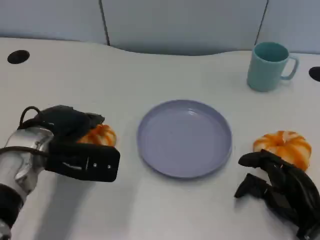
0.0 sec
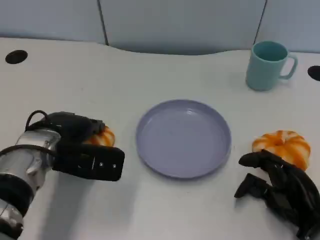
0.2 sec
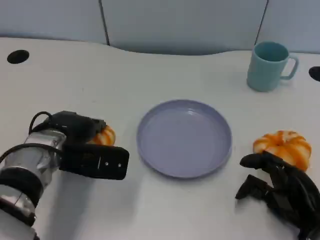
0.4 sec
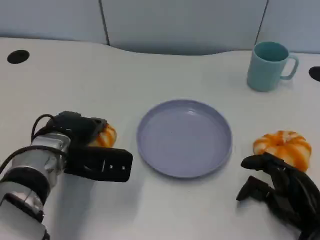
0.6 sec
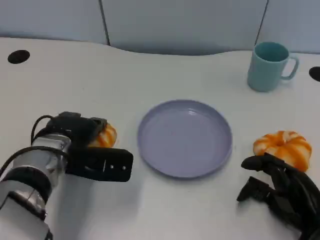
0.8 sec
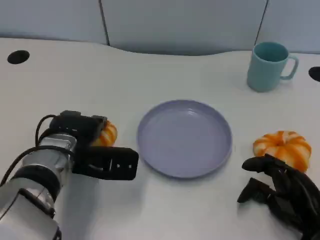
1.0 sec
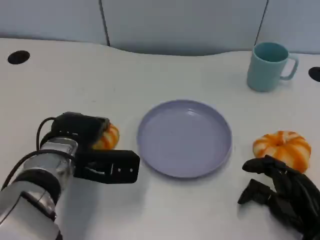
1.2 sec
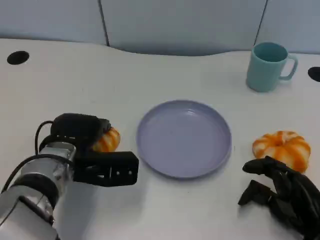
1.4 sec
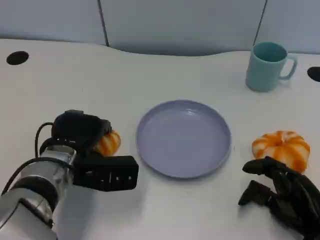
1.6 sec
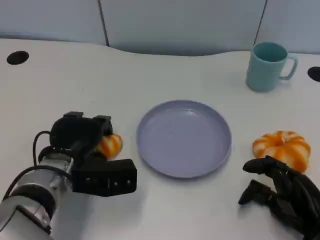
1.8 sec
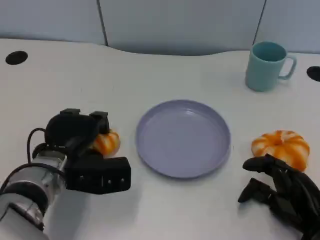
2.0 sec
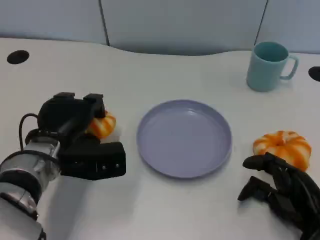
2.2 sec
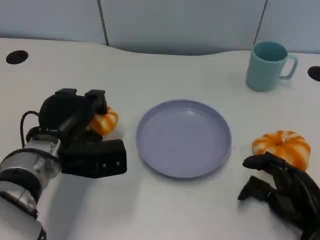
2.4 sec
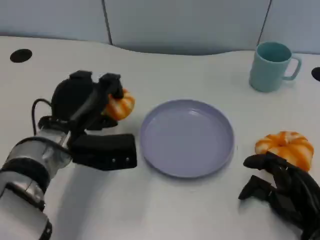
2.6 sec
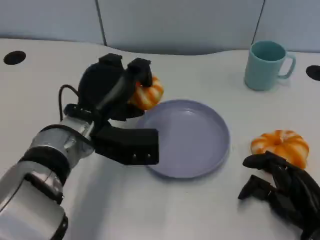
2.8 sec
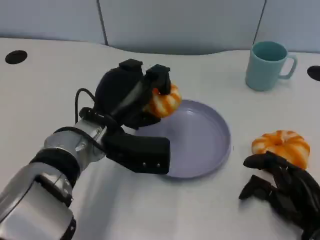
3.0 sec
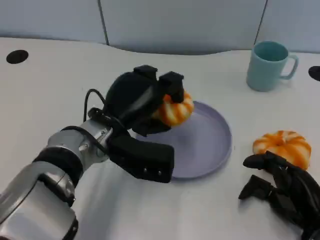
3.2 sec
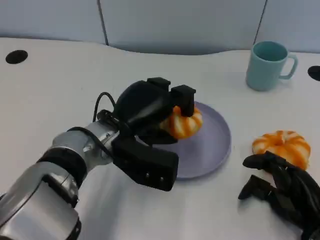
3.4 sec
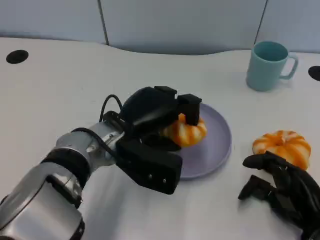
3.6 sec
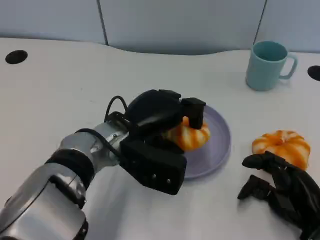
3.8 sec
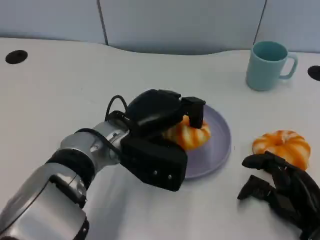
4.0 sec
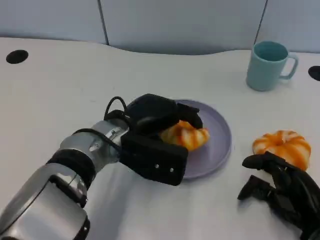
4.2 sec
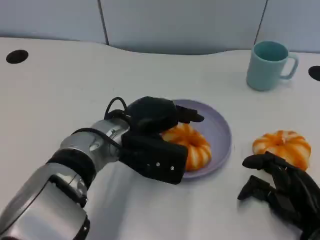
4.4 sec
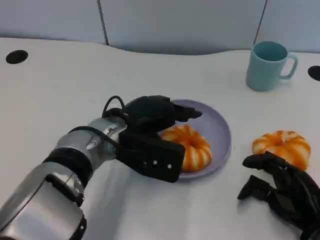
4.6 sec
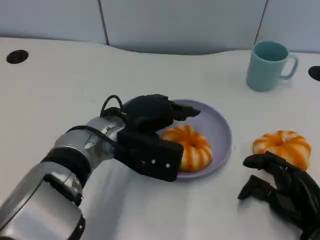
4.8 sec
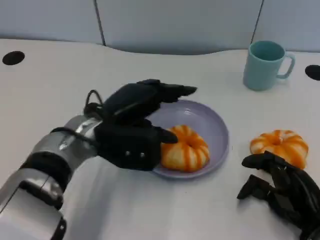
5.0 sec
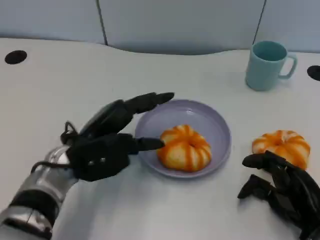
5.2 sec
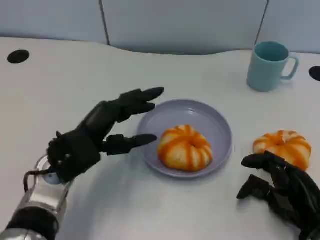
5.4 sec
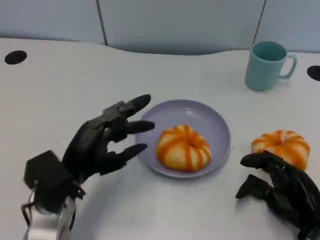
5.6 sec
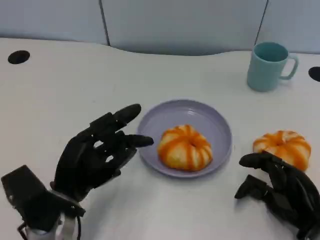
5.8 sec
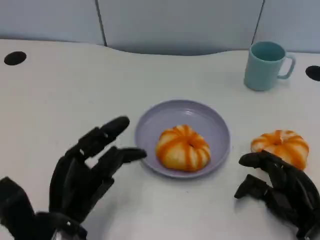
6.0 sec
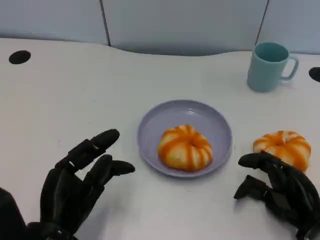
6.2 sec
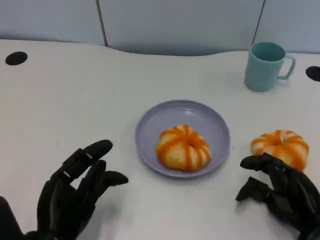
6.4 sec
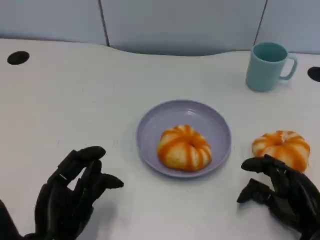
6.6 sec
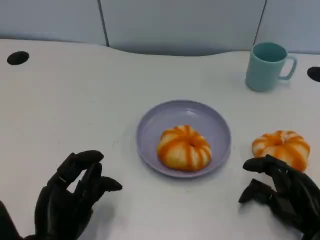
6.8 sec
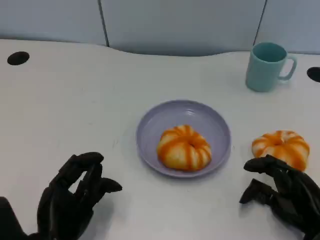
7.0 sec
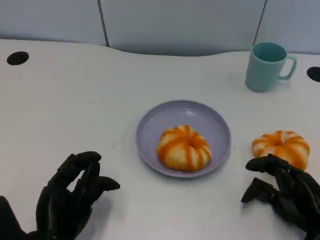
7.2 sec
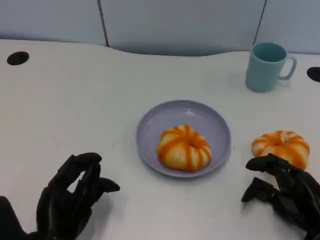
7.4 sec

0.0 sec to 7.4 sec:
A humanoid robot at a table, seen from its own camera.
Task of the whole recording: Grasp the bread from the table and place it into the plate.
0.0 sec to 1.4 sec: The left hand ends up roughly 5 cm from where it was.
1.4 sec to 3.0 sec: The left hand shifts approximately 5 cm to the right.
4.4 sec to 6.0 sec: The left hand heads backward, to the left and downward, covering some 15 cm.
6.0 sec to 7.4 sec: The hands make only small movements.

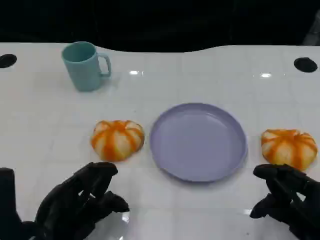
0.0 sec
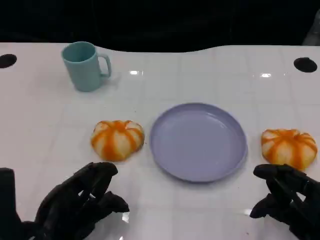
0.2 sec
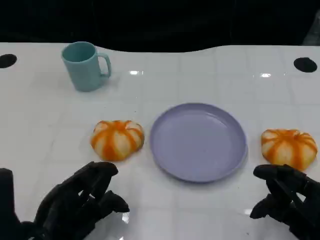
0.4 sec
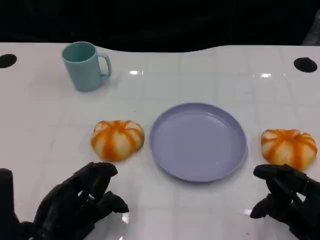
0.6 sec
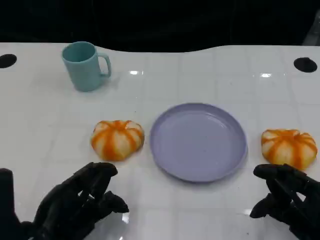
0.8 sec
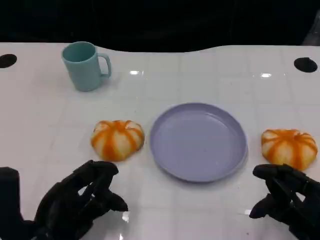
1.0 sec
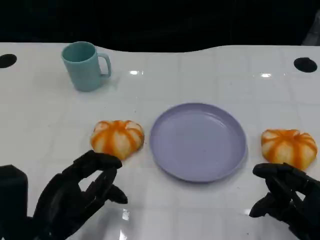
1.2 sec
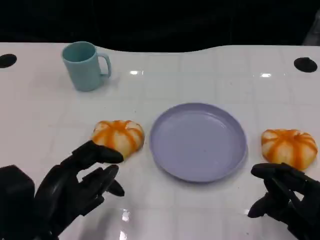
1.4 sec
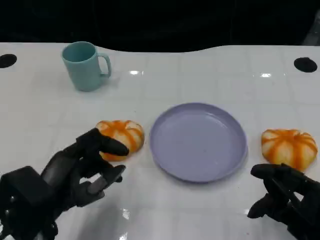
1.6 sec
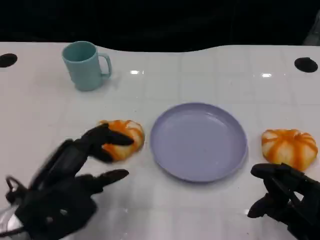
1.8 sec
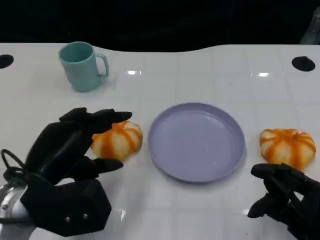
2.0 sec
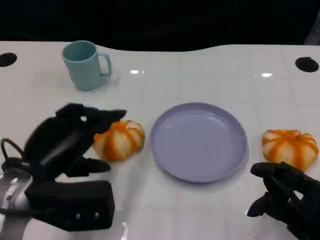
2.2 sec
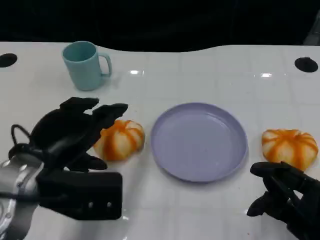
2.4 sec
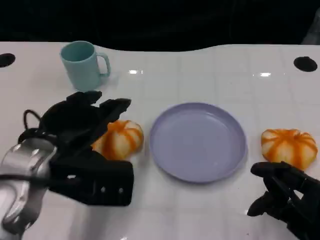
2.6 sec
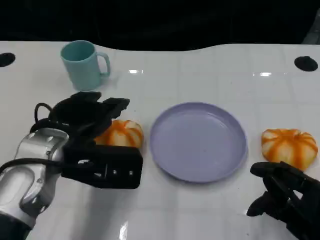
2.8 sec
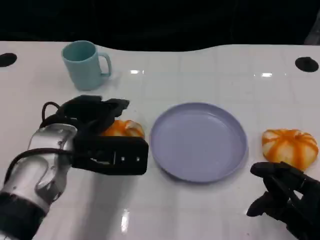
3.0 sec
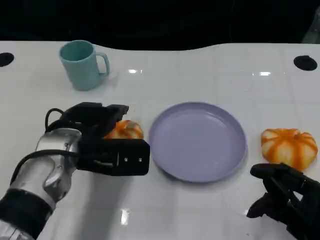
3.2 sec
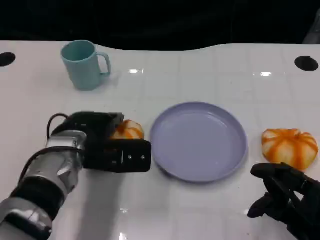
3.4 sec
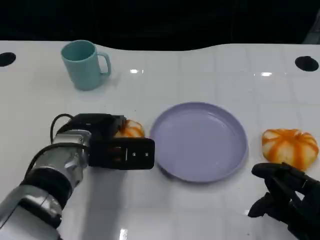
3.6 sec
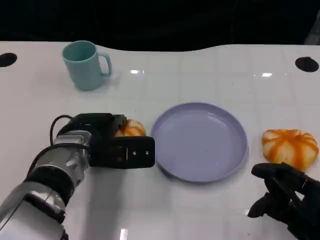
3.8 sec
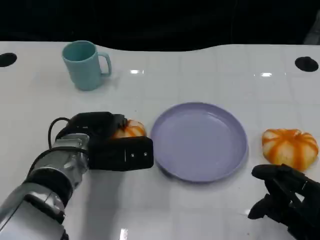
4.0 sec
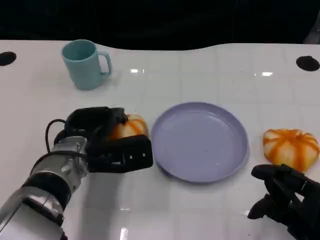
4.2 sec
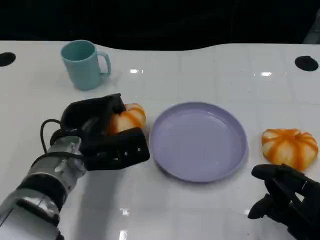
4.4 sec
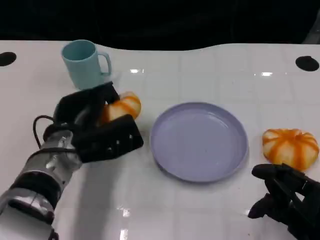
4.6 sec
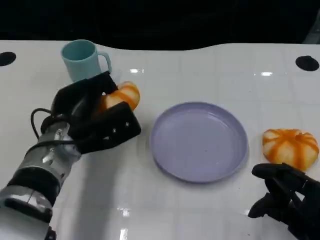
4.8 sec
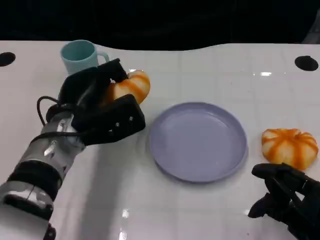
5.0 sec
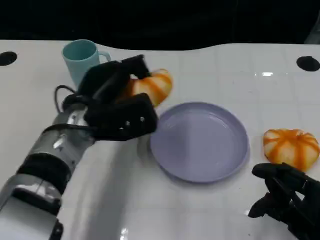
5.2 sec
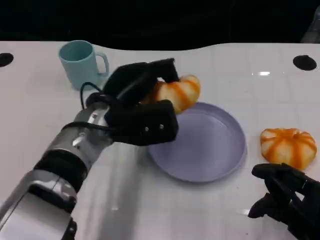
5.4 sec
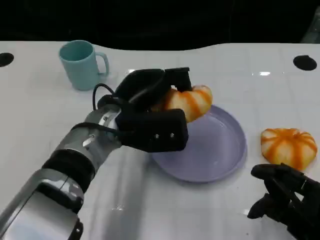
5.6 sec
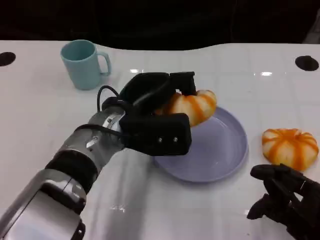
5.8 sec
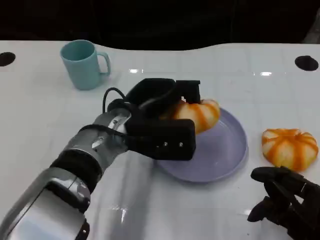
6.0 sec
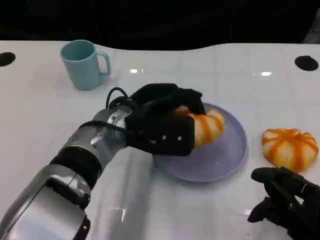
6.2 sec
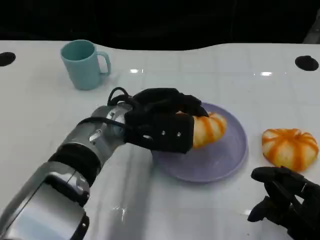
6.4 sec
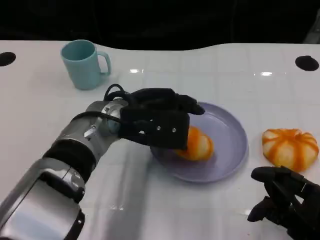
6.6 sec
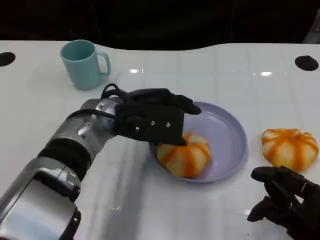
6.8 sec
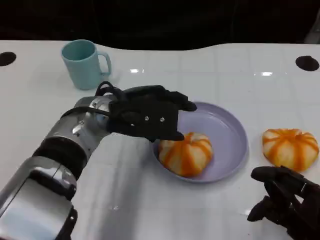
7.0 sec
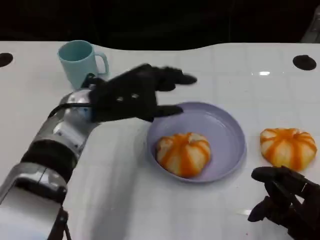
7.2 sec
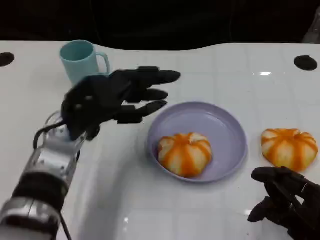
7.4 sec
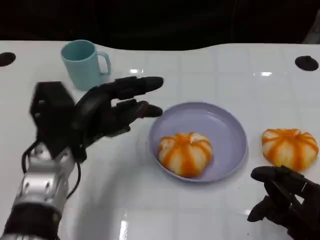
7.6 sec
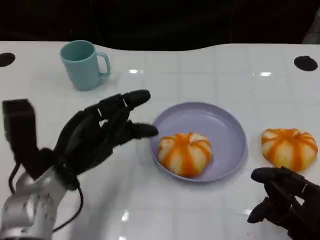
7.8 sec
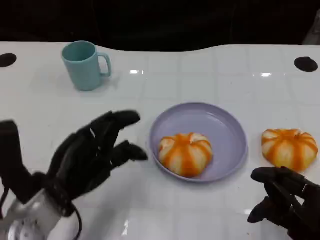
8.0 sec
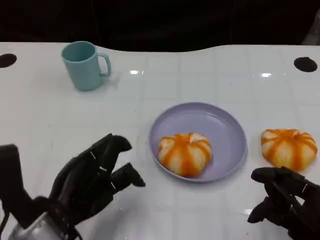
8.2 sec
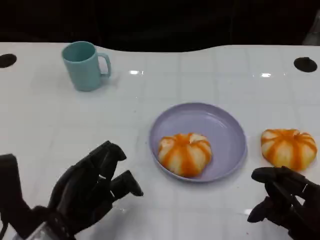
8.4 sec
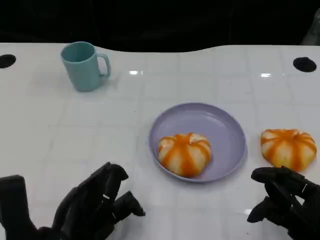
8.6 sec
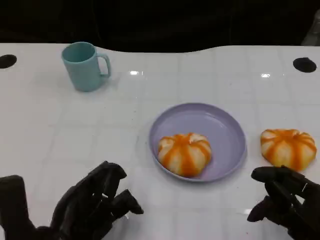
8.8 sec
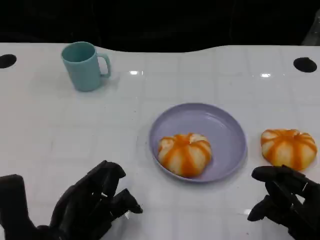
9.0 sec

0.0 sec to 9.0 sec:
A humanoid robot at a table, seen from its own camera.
Task of the whole recording: Grasp the bread from the table and place it into the plate.
1.6 sec to 3.0 sec: The left hand is displaced forward by some 10 cm.
3.0 sec to 4.4 sec: The left hand shifts some 5 cm downward.
4.4 sec to 6.0 sec: The left hand moves to the right, approximately 10 cm.
6.0 sec to 7.6 sec: The left hand travels to the left by roughly 10 cm.
7.6 sec to 9.0 sec: The left hand shifts roughly 10 cm backward.

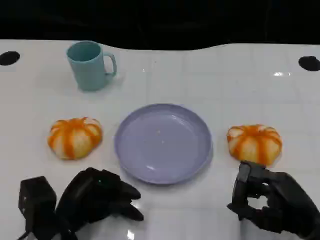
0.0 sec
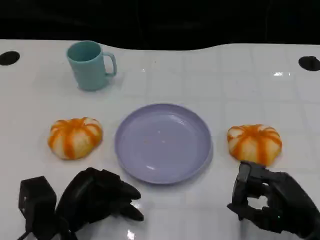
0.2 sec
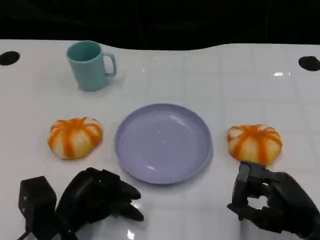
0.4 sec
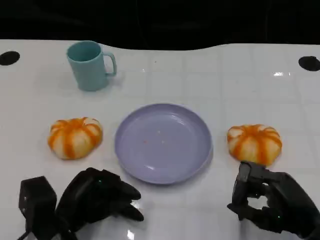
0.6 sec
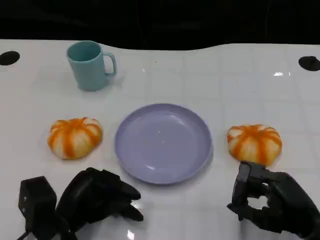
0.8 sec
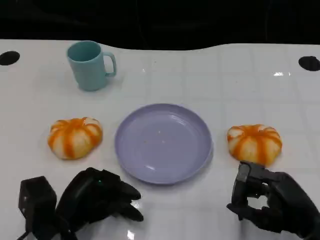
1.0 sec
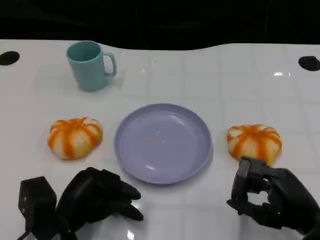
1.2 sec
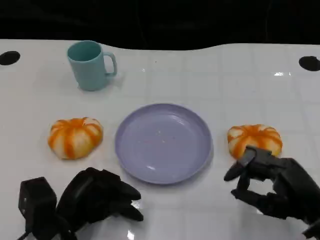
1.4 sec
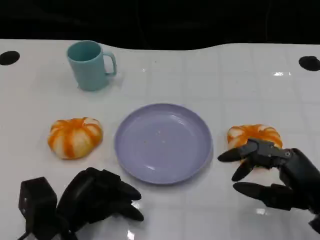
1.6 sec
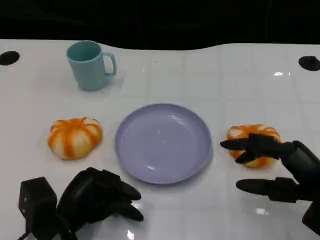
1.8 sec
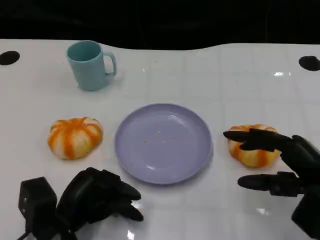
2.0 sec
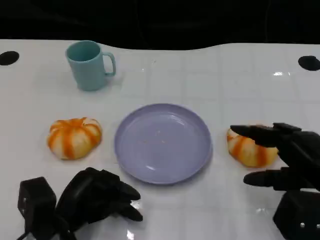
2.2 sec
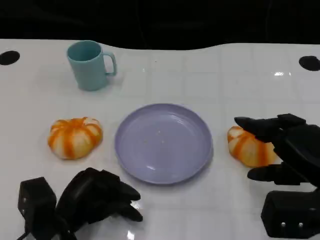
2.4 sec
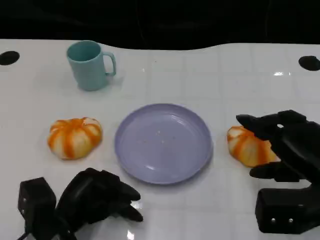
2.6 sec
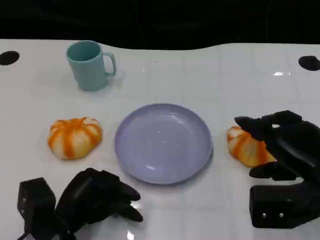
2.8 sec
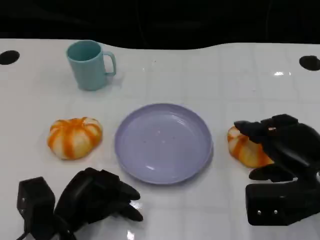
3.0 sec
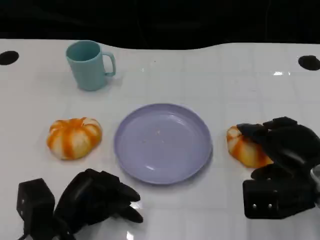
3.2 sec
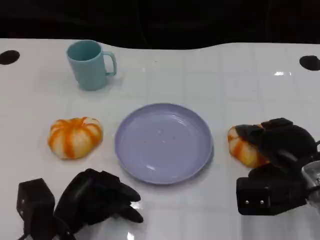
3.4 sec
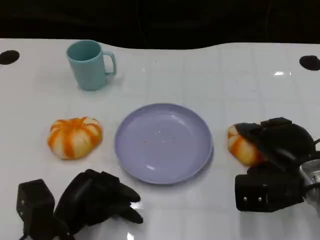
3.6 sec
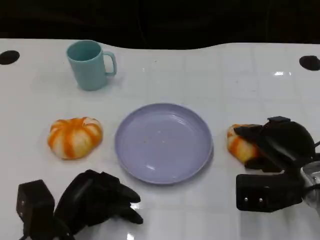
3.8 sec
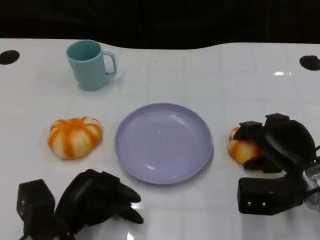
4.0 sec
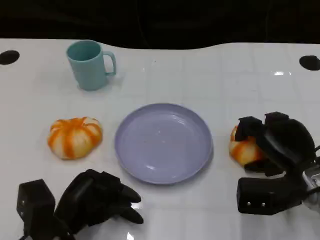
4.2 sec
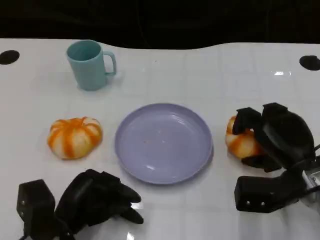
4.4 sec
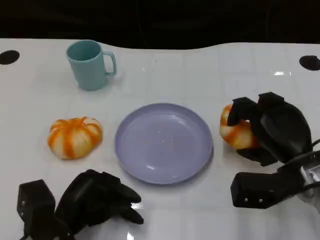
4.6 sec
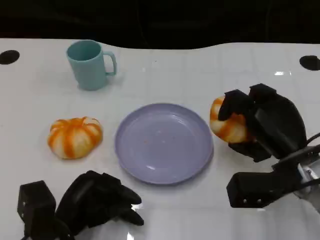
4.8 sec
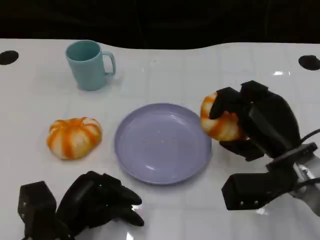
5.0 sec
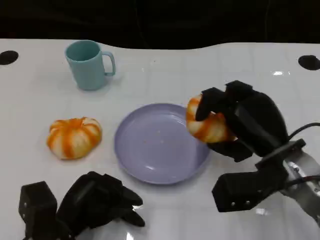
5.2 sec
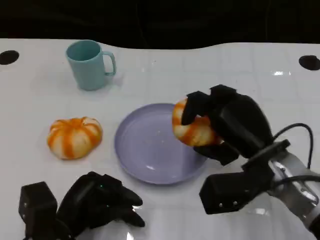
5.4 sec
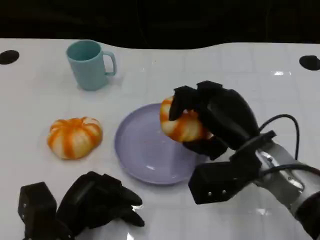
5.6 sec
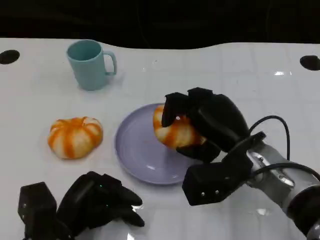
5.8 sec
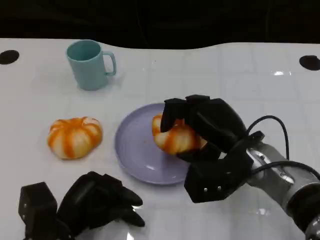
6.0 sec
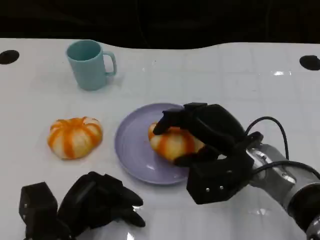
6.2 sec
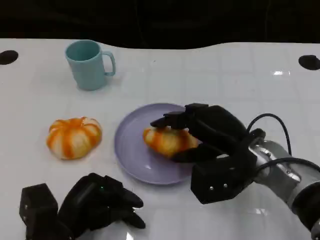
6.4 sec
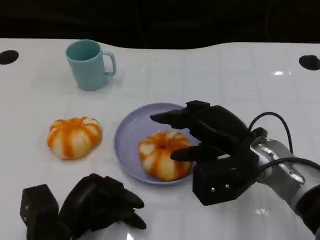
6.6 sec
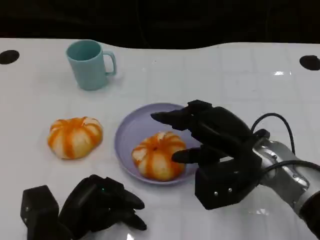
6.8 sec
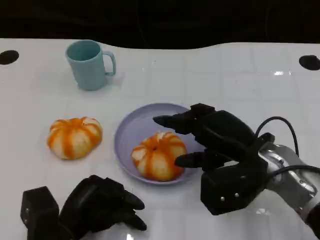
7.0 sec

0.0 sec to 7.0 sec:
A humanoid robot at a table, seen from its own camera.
Task of the whole recording: Grasp the bread from the table and place it into the plate.
0.0 sec to 1.4 sec: There are only small adjustments of the hands.
1.4 sec to 2.8 sec: The right hand ends up roughly 5 cm from where it was.
2.8 sec to 4.2 sec: The right hand moves roughly 5 cm.
4.2 sec to 5.6 sec: The right hand moves to the left, about 10 cm.
